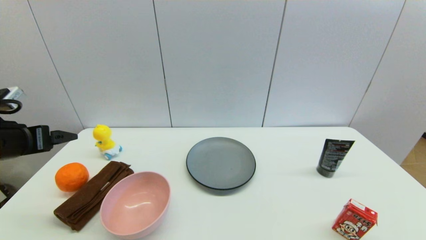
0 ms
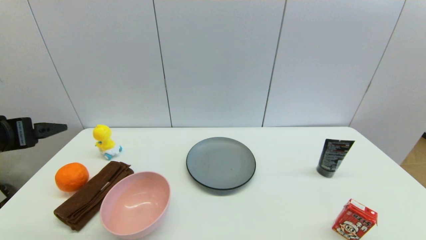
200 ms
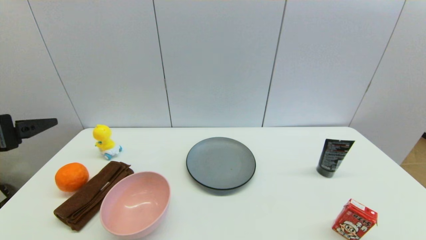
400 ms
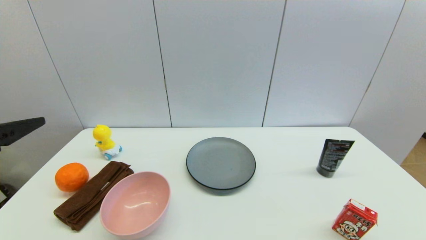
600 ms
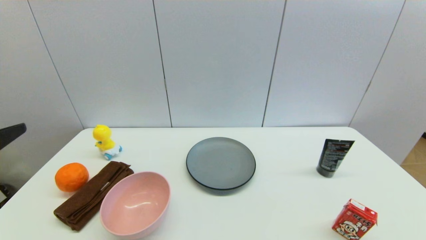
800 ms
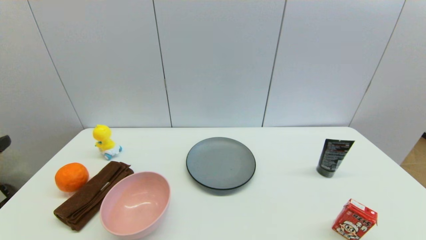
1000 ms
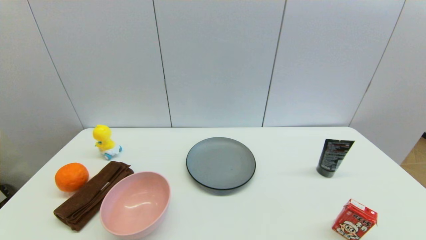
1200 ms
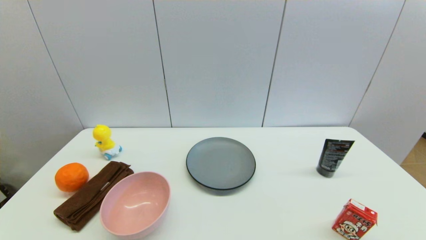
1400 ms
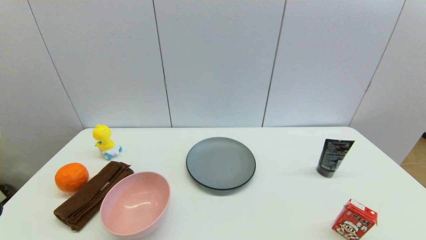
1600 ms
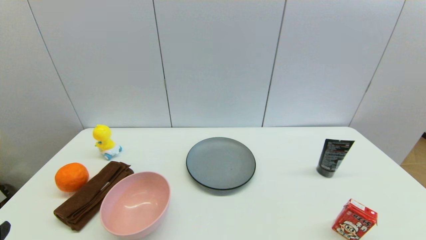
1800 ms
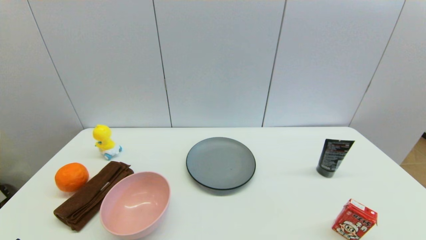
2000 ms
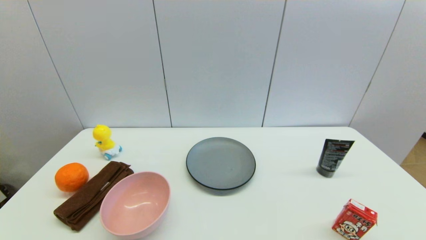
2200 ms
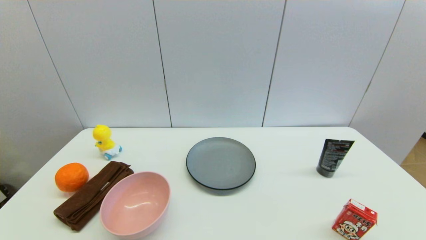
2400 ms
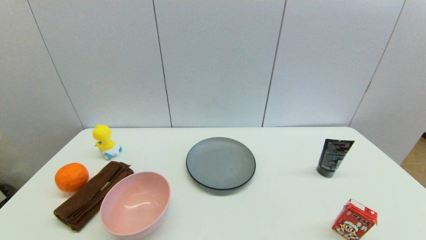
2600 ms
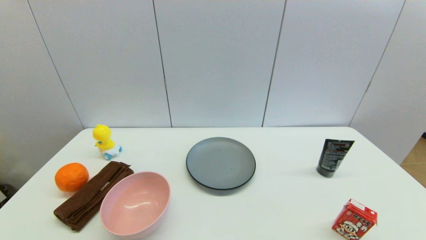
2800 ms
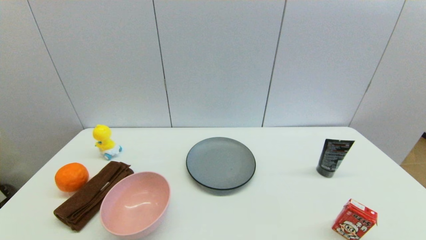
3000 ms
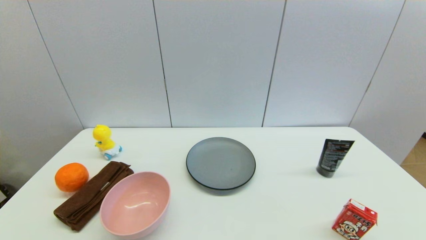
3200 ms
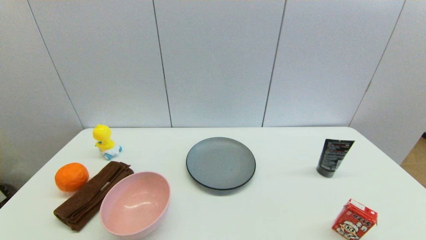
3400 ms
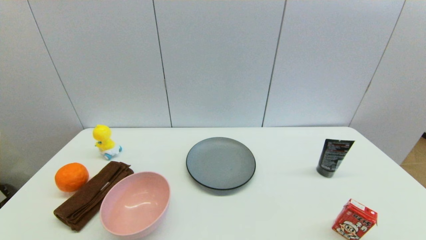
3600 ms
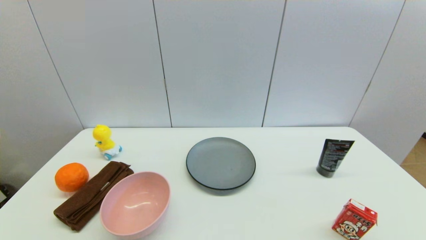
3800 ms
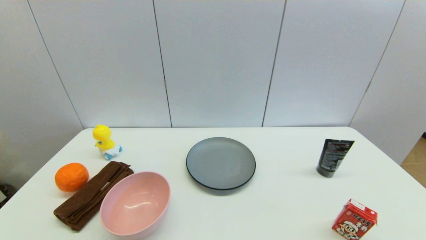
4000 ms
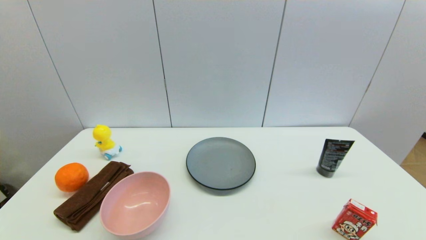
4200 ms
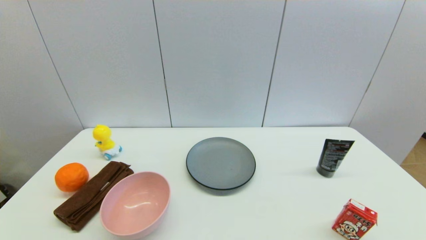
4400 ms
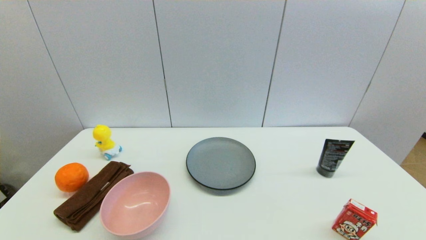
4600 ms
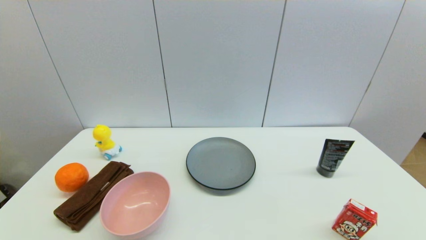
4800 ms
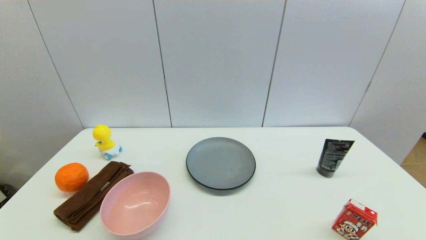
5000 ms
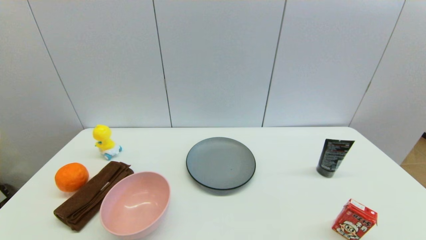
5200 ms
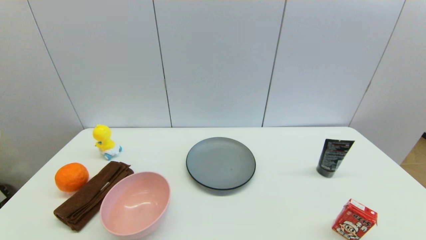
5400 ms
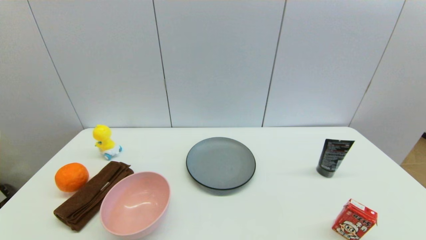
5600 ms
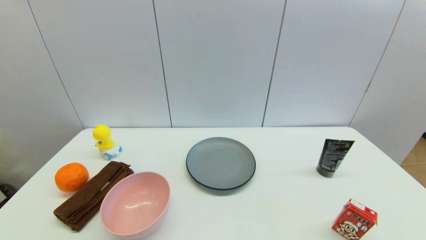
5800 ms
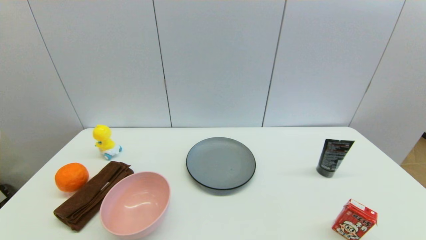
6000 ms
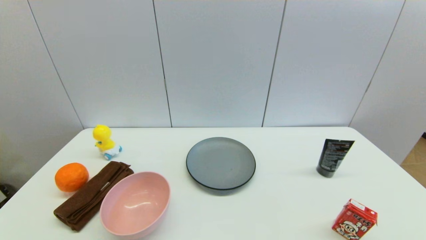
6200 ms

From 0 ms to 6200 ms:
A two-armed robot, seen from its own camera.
From 0 ms to 1600 ms: The left gripper goes approximately 25 cm backward.
From 4600 ms to 6200 ms: Both grippers stay about where they are.
